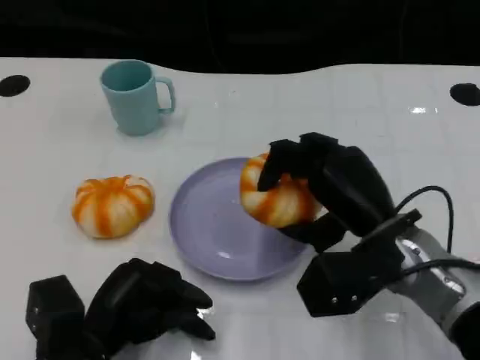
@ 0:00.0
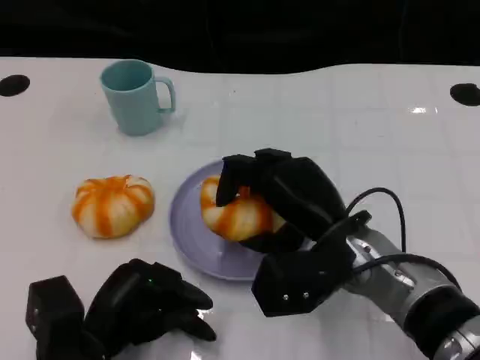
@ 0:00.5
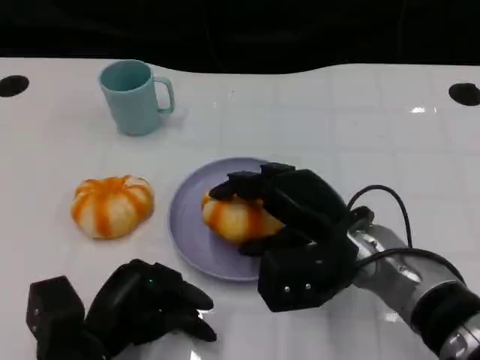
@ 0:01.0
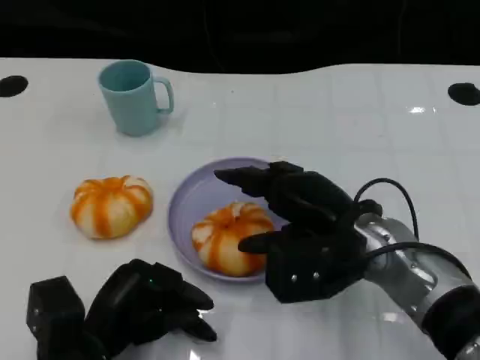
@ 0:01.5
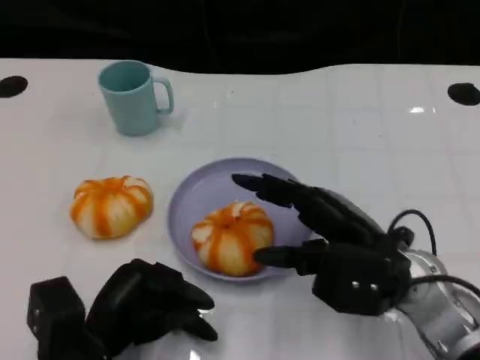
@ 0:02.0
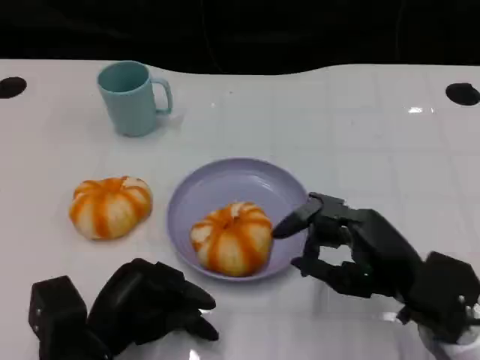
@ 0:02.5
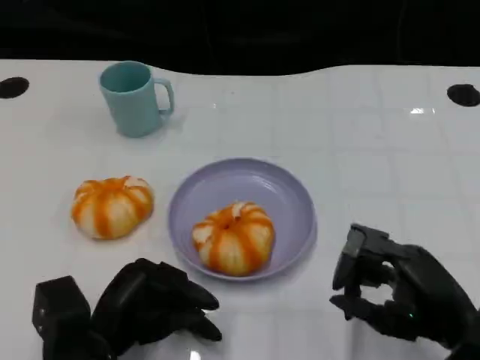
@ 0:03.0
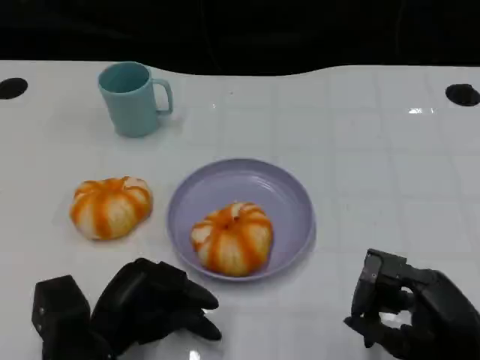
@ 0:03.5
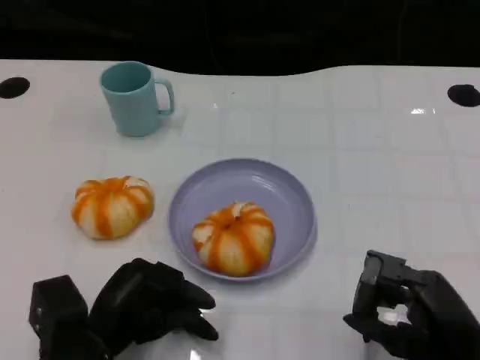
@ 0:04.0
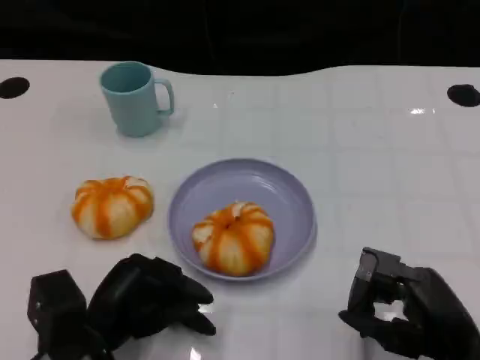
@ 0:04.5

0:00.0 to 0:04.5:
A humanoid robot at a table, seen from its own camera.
Task of the whole recording: Grasp the bread from the table and place it into the plate.
0:02.0 to 0:04.5: The right hand moves backward and to the right, roughly 10 cm.

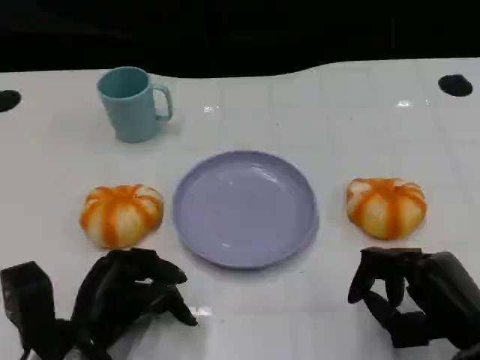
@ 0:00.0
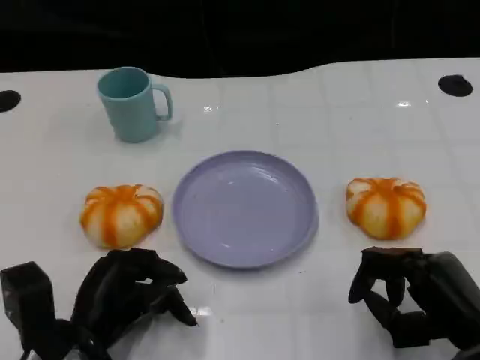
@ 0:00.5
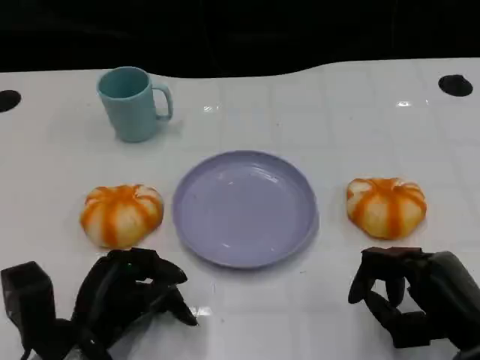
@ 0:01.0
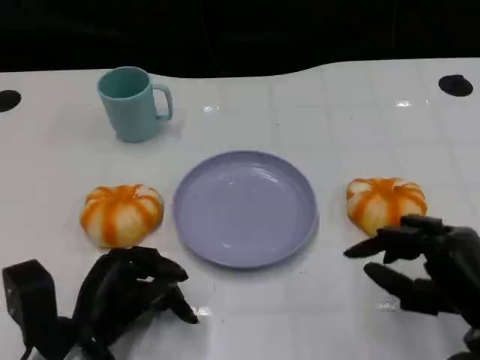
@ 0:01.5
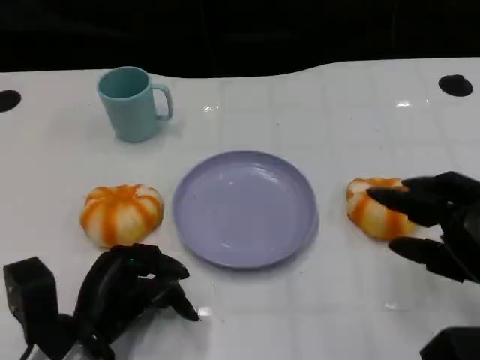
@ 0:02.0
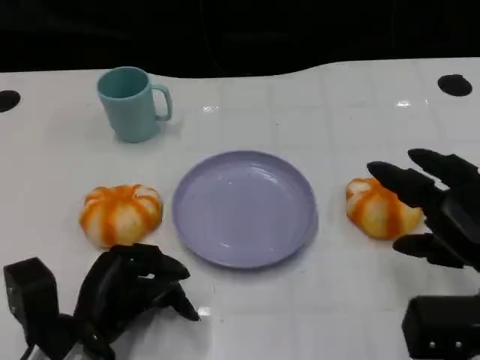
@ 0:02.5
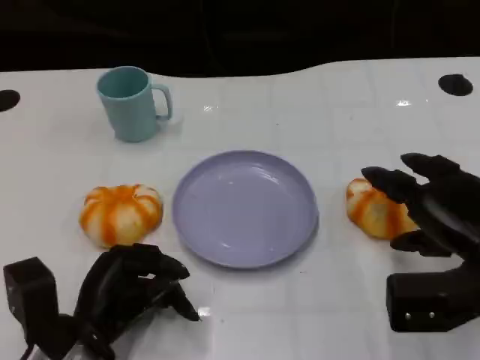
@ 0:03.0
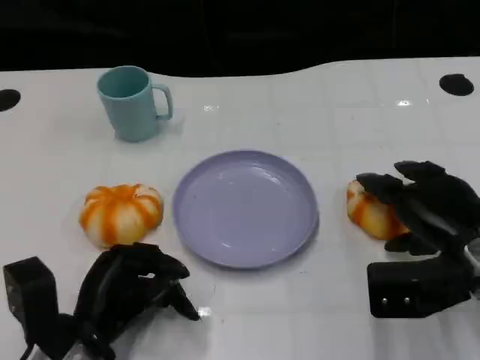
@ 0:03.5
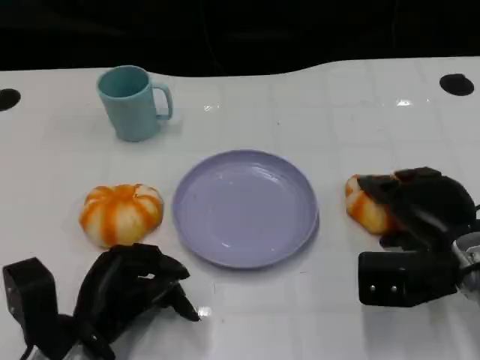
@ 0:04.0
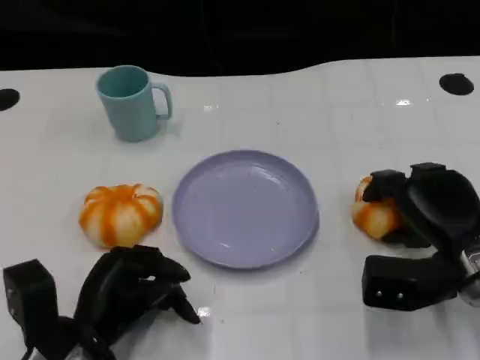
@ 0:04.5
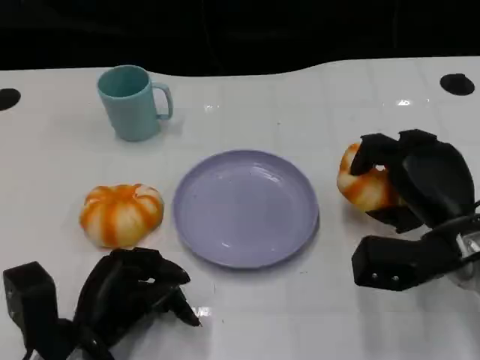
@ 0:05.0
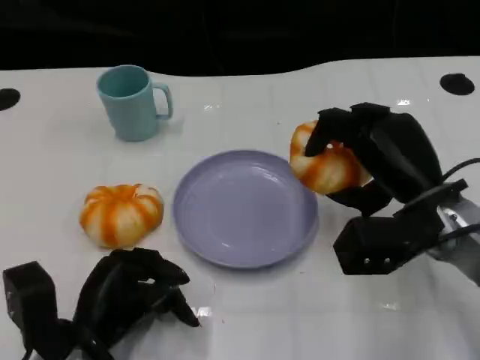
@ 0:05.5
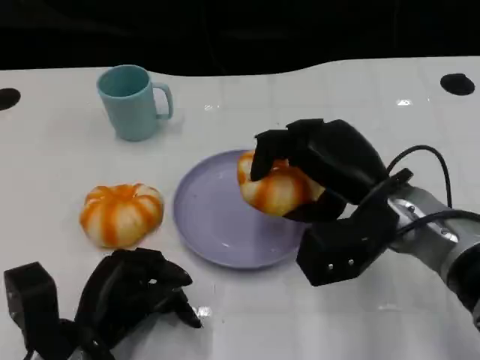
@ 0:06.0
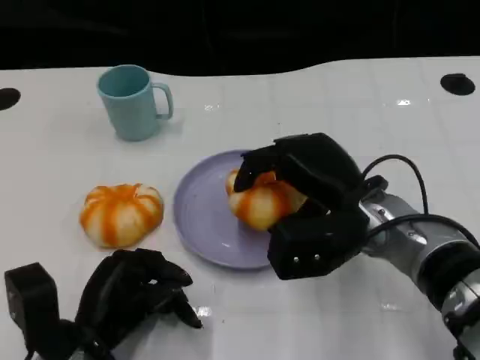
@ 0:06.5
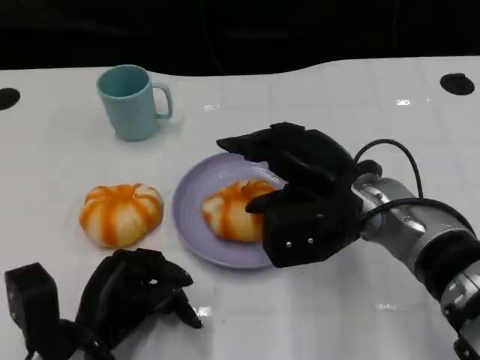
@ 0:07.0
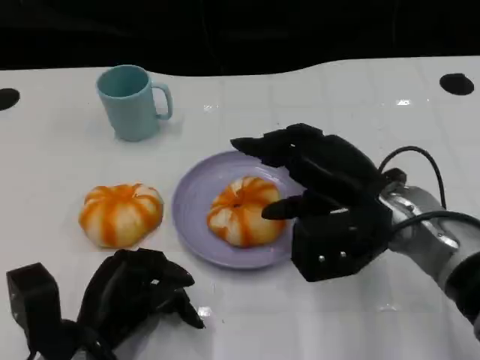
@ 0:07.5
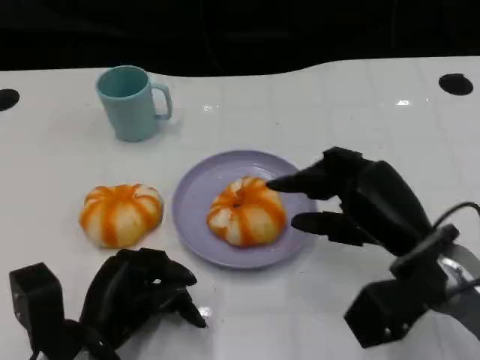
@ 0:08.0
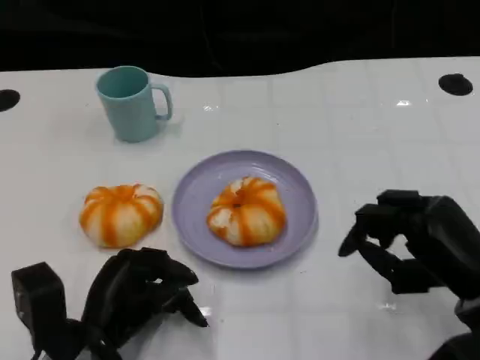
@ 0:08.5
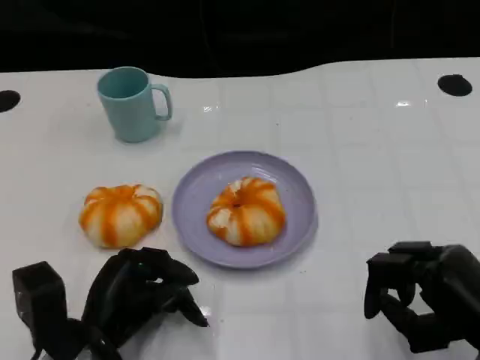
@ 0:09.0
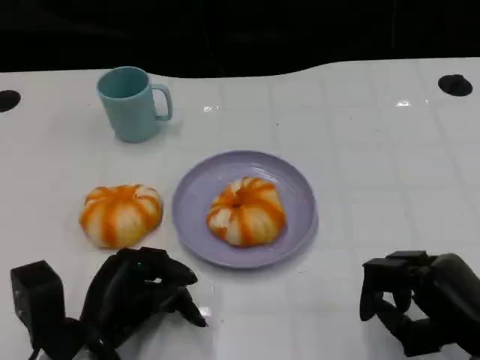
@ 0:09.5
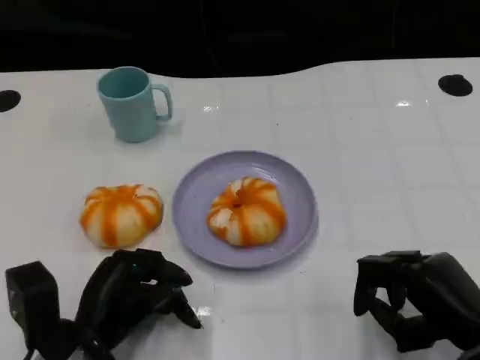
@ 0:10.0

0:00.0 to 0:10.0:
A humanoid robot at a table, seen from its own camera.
Task of the whole recording: Grasp the bread from the table and place it into the plate.
0:00.0 to 0:02.0: The right hand heads upward, covering roughly 5 cm.
0:02.0 to 0:04.0: The right hand shifts approximately 10 cm forward.
0:04.0 to 0:06.0: The right hand goes roughly 10 cm to the left and upward.
0:06.0 to 0:08.0: The right hand ends up about 5 cm from where it was.
0:08.0 to 0:10.0: The right hand travels backward and to the right by roughly 10 cm.

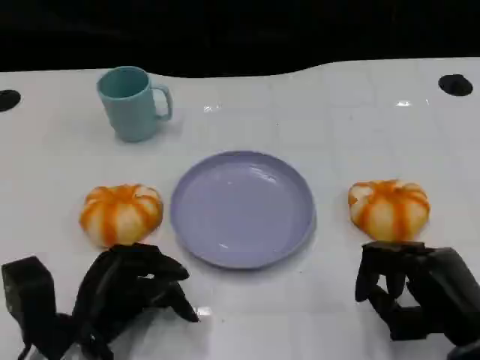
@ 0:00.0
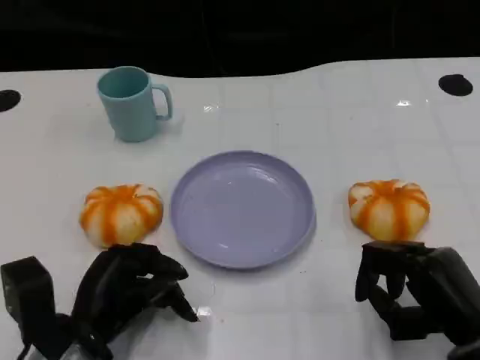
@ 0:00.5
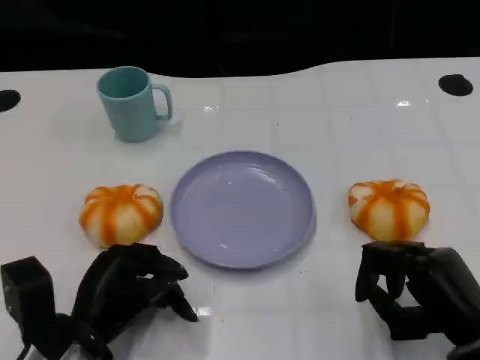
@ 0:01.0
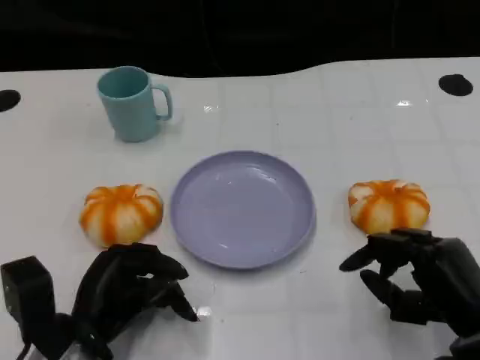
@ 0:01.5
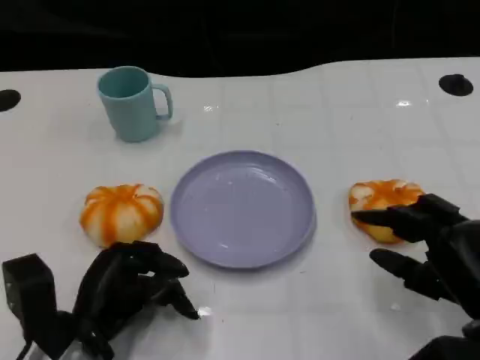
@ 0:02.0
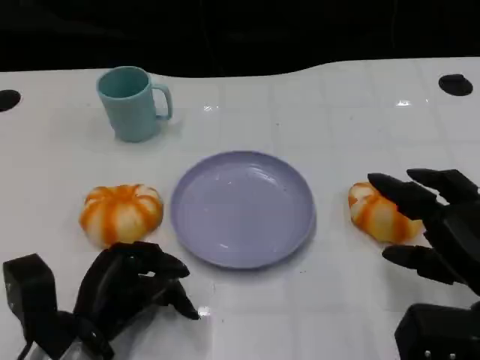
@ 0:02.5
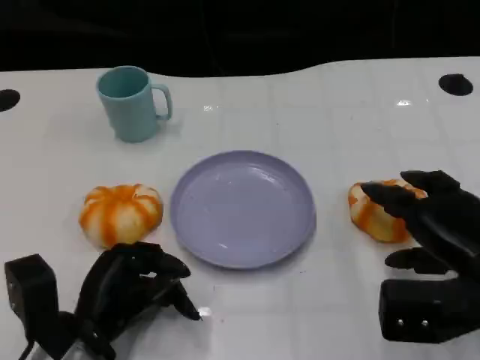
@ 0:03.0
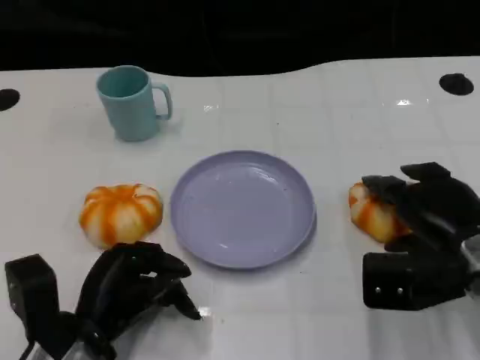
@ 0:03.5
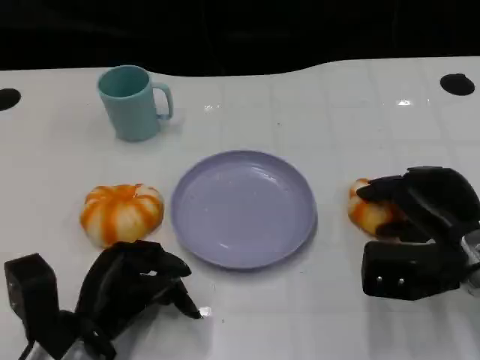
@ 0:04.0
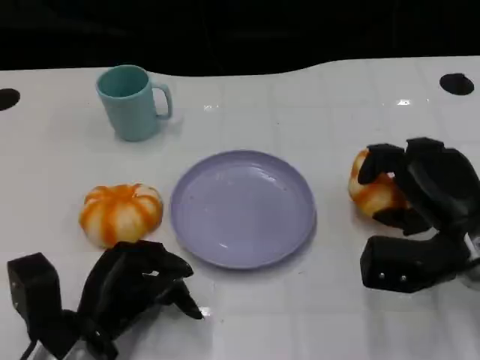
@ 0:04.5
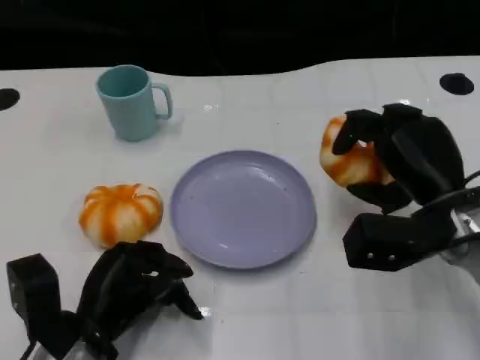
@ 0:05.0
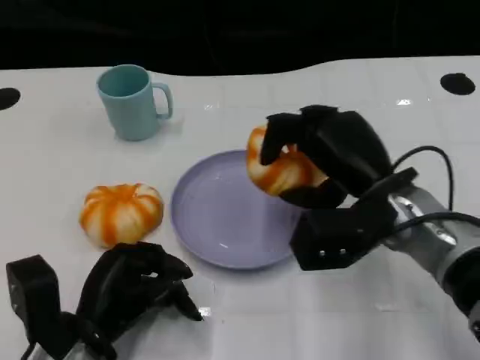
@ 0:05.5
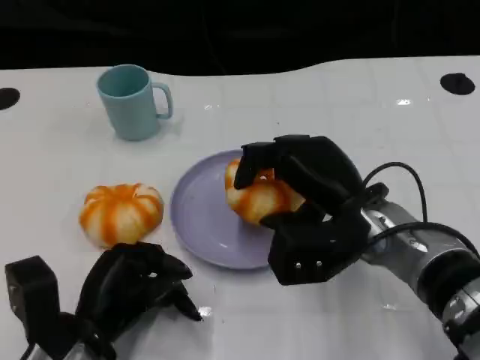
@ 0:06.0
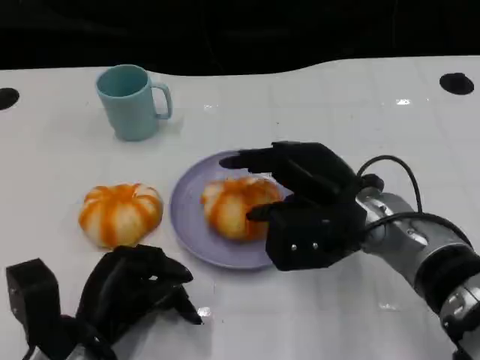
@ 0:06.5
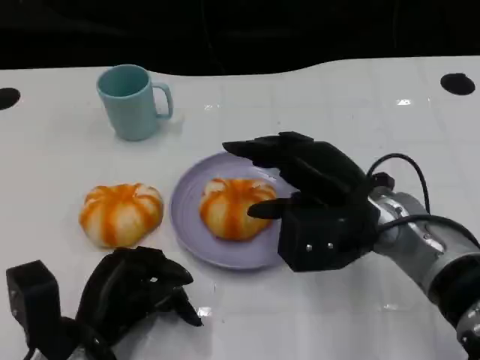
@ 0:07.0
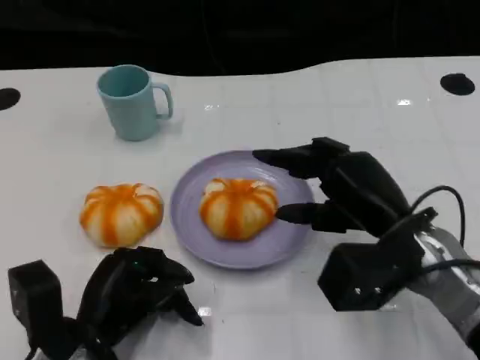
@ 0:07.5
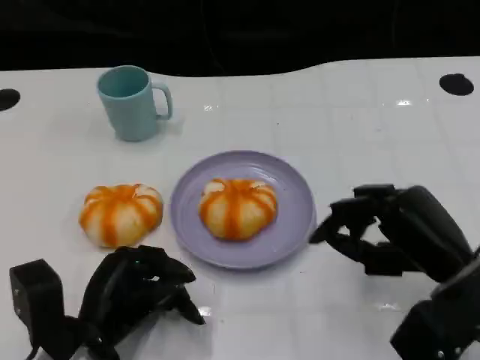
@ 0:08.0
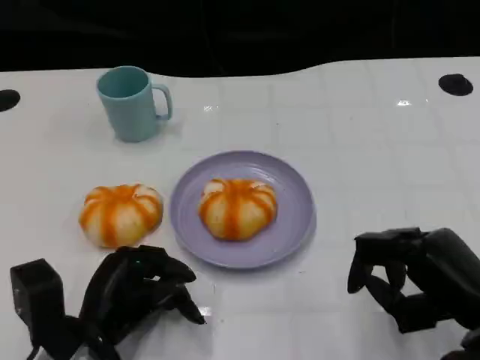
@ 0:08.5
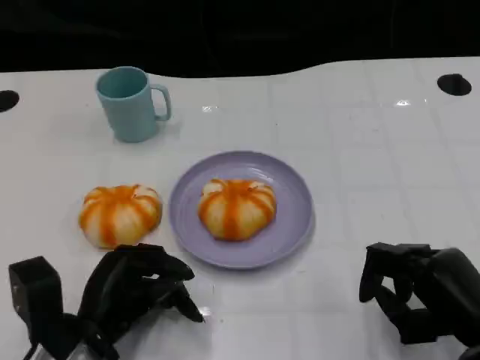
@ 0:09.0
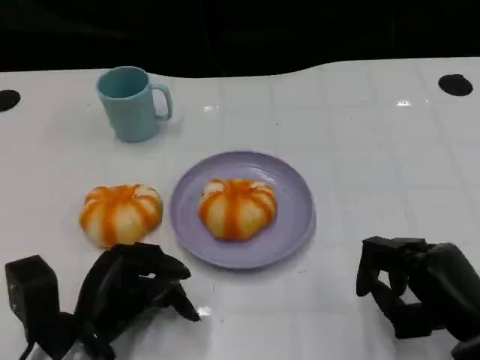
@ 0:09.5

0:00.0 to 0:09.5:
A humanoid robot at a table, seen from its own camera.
Task of the whole recording: Grasp the bread from the table and place it into the plate.
0:00.0 to 0:02.0: The hands stay close to where they were, moving slightly.
0:02.0 to 0:04.0: The right hand is displaced forward by approximately 10 cm.
0:04.0 to 0:05.5: The right hand goes roughly 10 cm to the left and upward.
0:05.5 to 0:07.5: The hands stay close to where they were, moving slightly.
0:07.5 to 0:09.5: The right hand is displaced backward, to the right and downward by approximately 10 cm.
